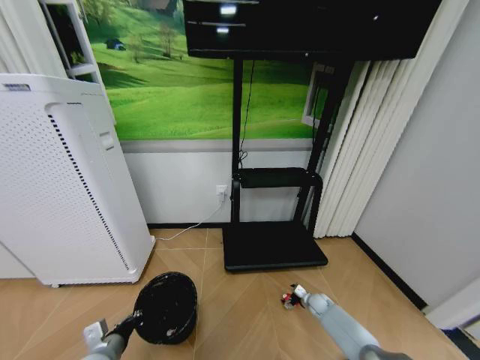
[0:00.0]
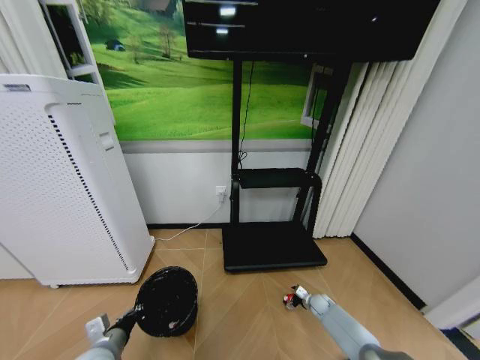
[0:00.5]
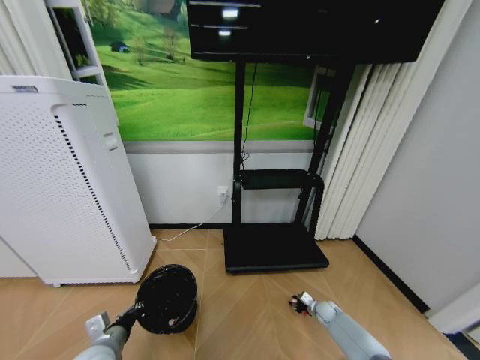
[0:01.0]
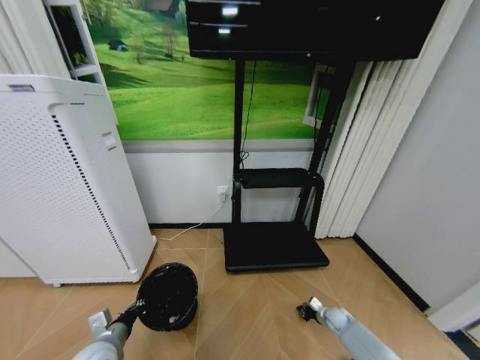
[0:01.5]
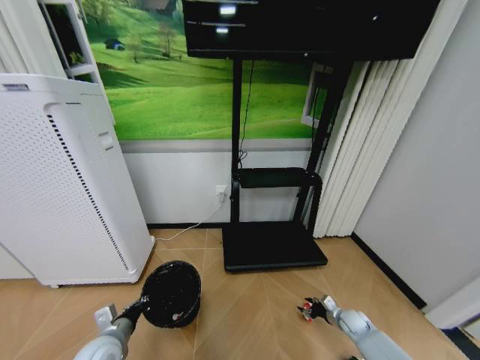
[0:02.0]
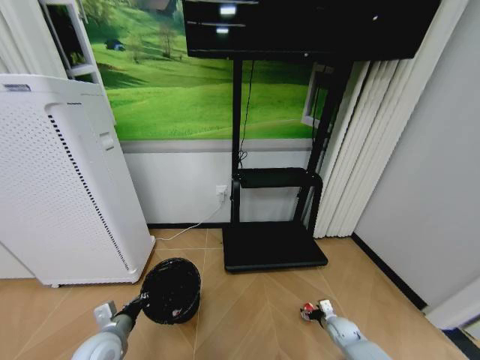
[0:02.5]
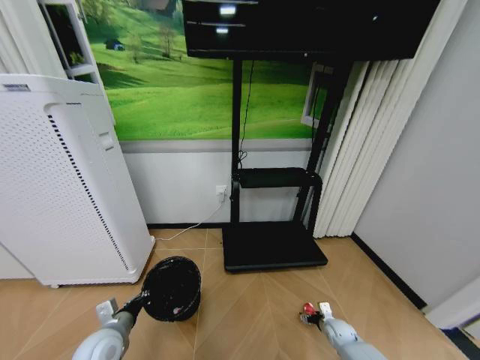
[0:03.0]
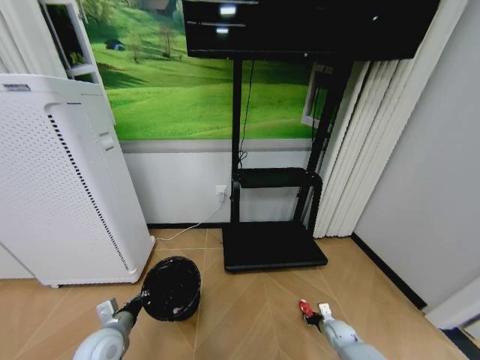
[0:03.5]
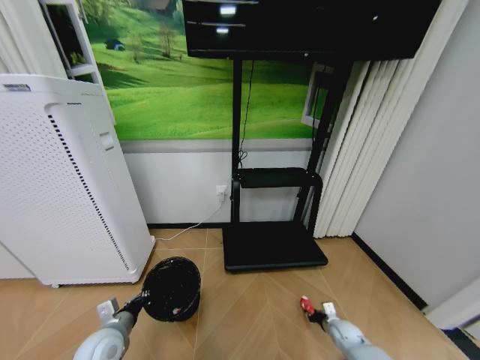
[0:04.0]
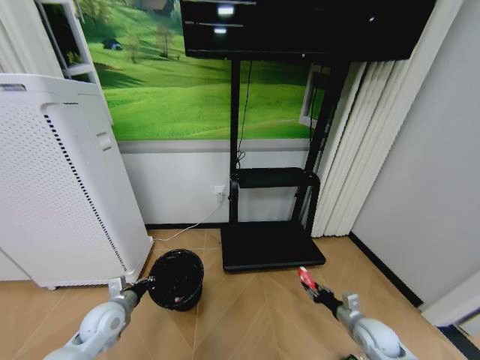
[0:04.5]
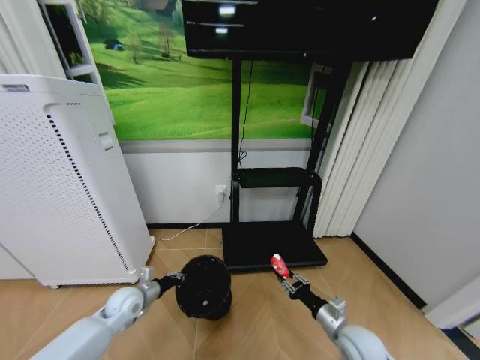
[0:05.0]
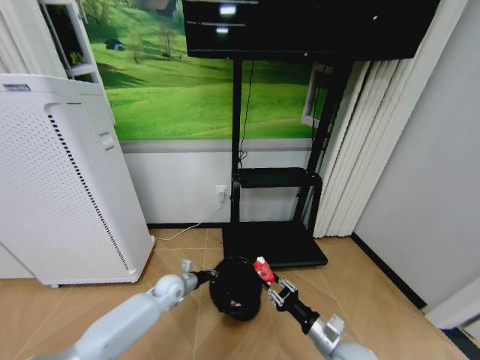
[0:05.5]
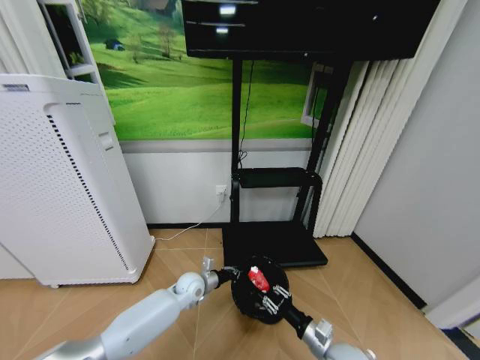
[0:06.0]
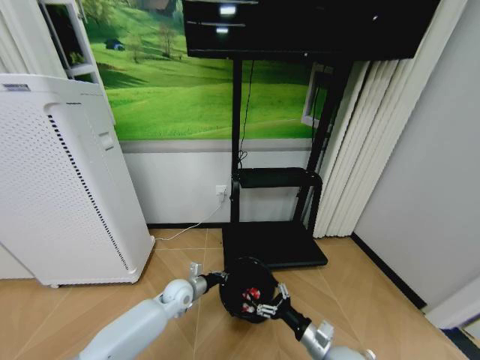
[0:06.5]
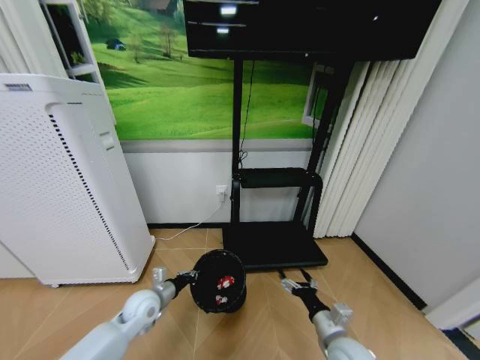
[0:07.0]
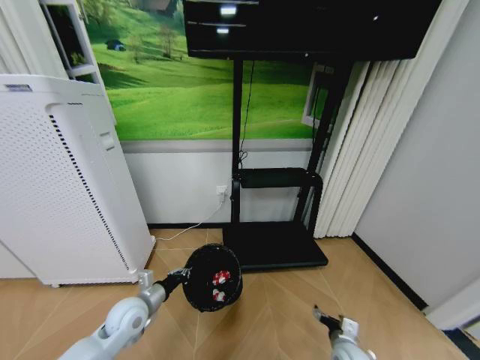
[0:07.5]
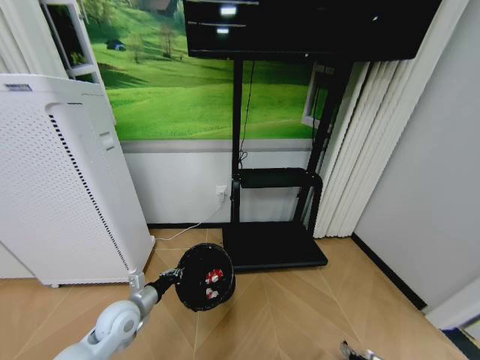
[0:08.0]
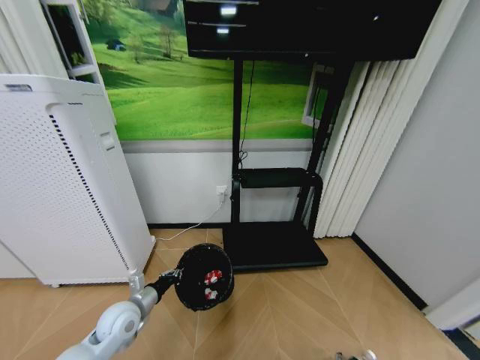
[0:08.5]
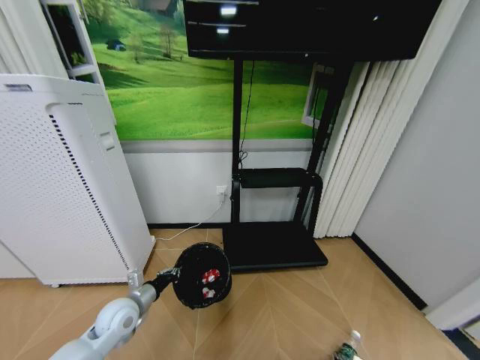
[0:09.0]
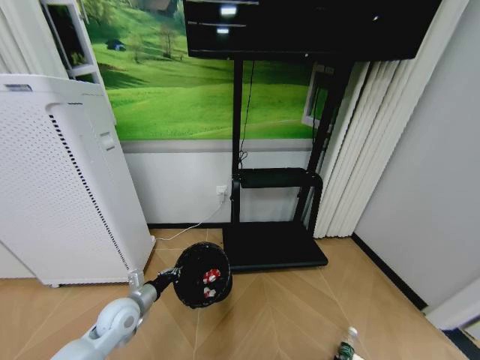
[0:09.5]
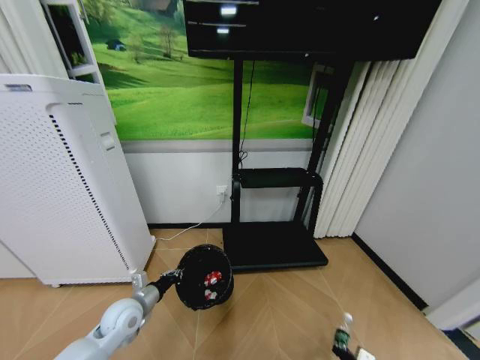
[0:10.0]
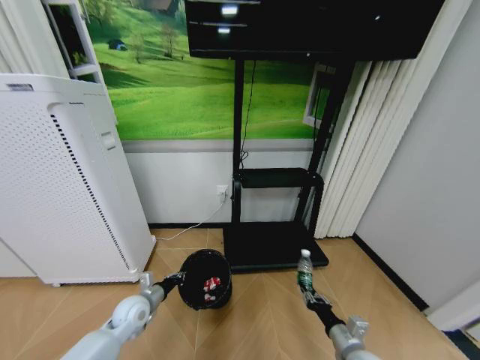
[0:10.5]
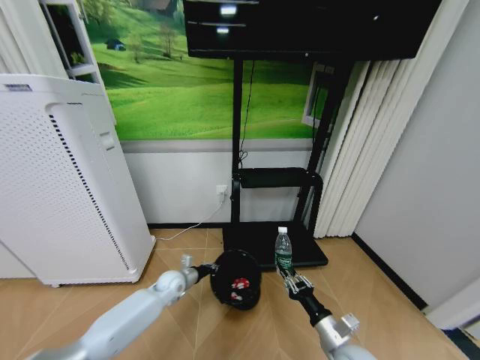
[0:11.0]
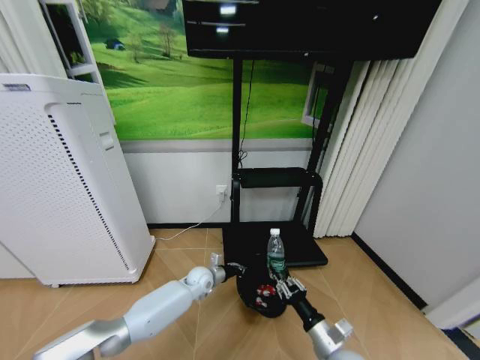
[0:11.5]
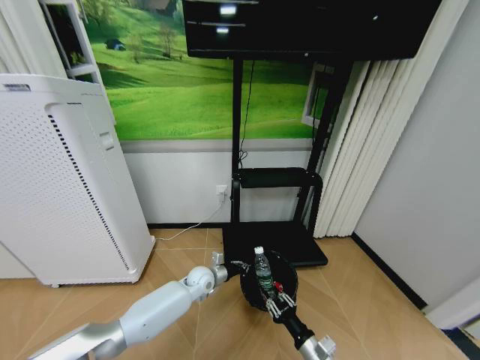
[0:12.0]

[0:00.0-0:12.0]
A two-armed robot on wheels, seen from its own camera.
Task of the whole recording: Pick up the trash bin and place the garbage on the floor into it.
0:00.0 to 0:02.0: The right gripper heads backward and to the right, covering roughly 10 cm, and closes its fingers.
0:02.0 to 0:04.0: The right gripper shifts by approximately 5 cm, and opens, then closes once more.
0:04.0 to 0:06.0: The right gripper goes about 25 cm upward, to the left and backward. The left gripper heads to the right and forward, covering some 25 cm.
0:06.0 to 0:08.0: The left gripper shifts approximately 20 cm to the left, backward and upward. The right gripper shifts approximately 20 cm downward, to the right and backward, and opens up.
0:08.0 to 0:10.0: The right gripper closes its fingers.
0:10.0 to 0:12.0: The right gripper travels to the left and upward by roughly 15 cm. The left gripper goes some 25 cm to the right and forward.

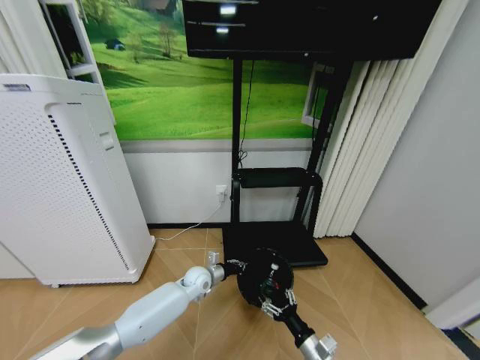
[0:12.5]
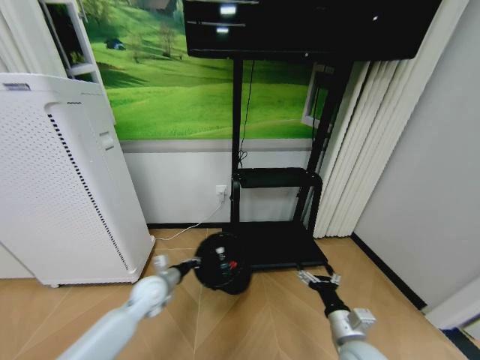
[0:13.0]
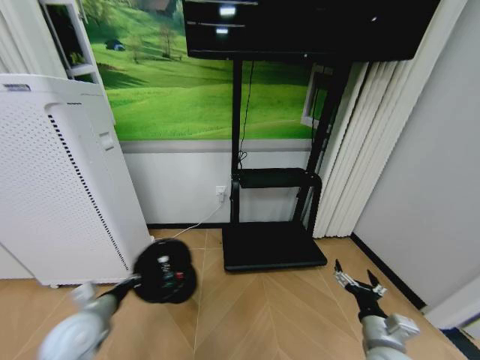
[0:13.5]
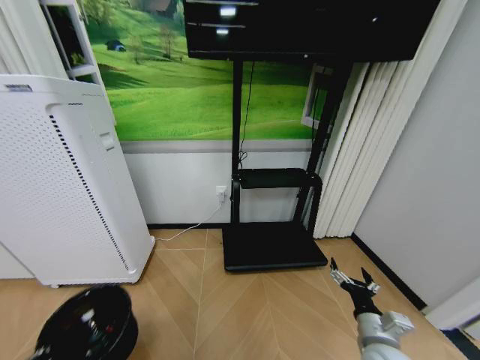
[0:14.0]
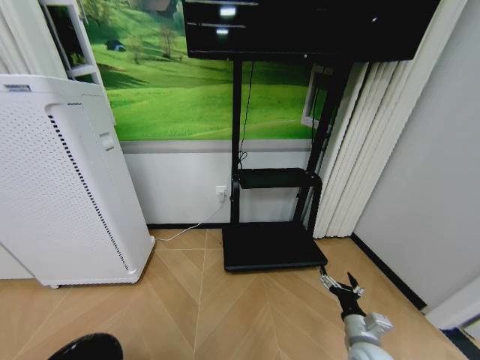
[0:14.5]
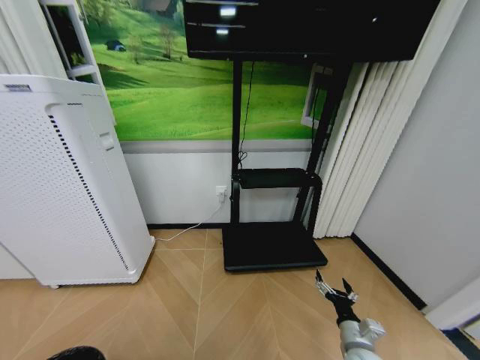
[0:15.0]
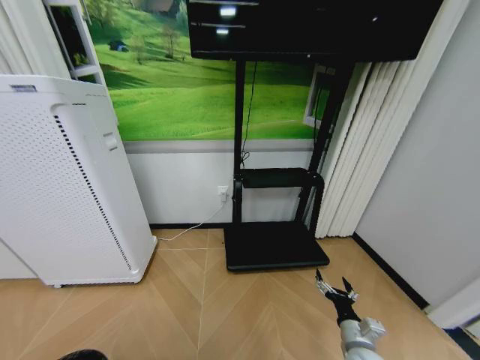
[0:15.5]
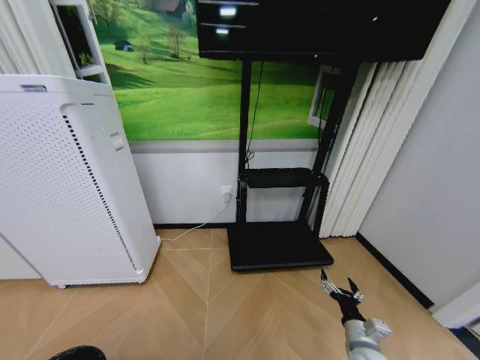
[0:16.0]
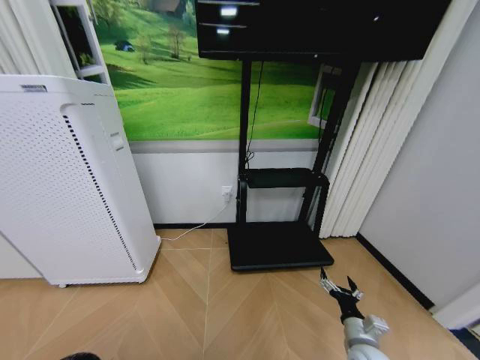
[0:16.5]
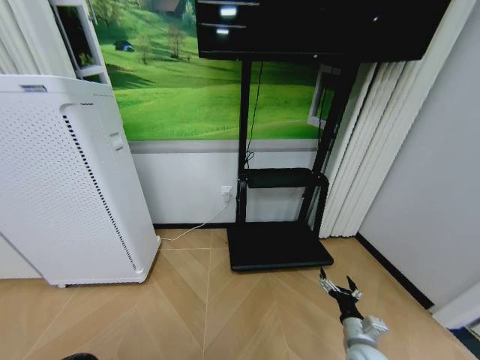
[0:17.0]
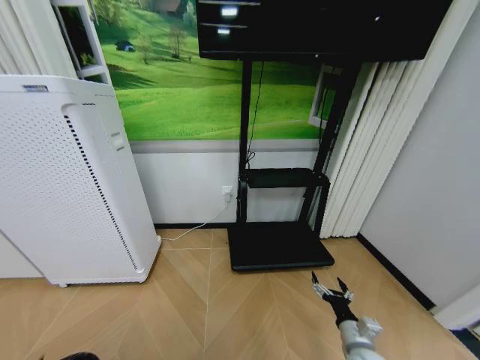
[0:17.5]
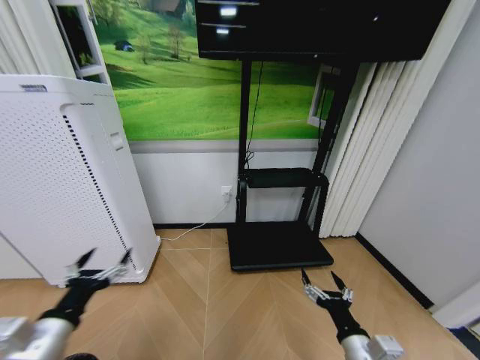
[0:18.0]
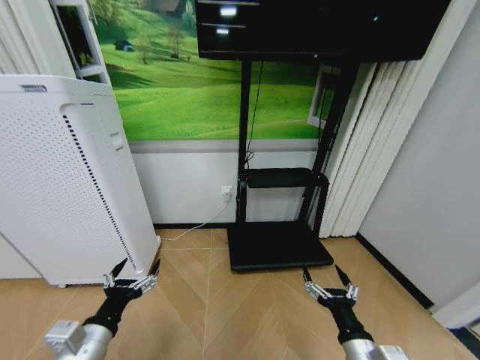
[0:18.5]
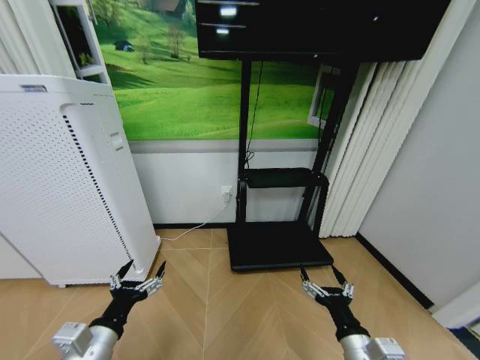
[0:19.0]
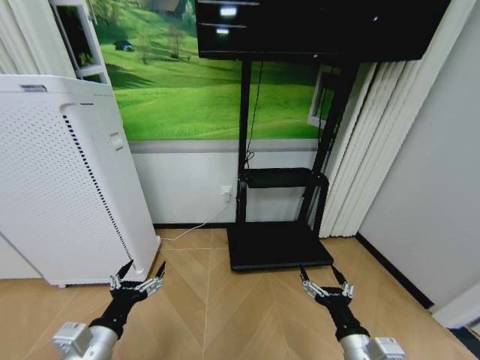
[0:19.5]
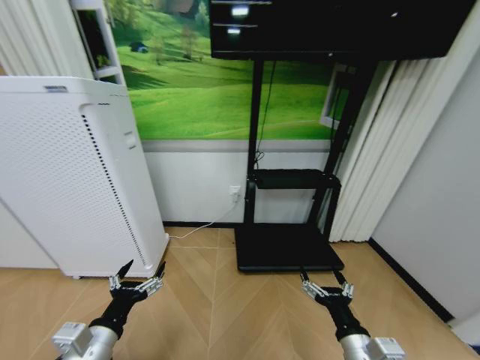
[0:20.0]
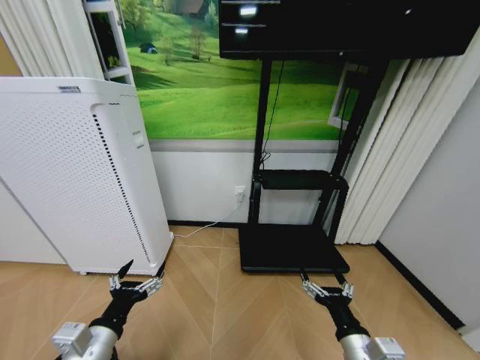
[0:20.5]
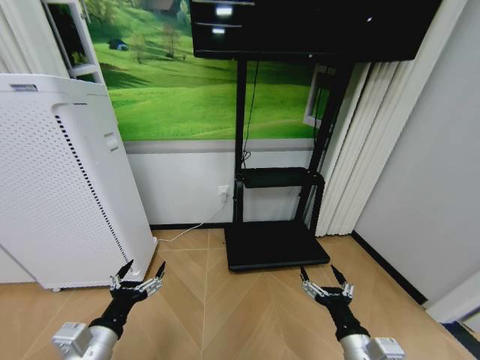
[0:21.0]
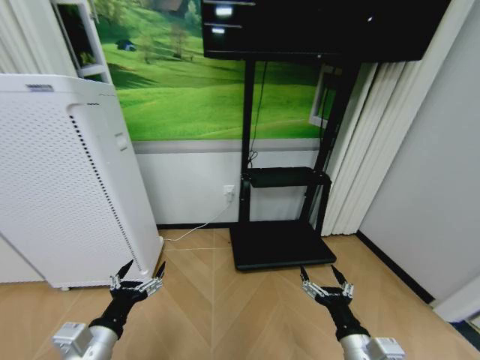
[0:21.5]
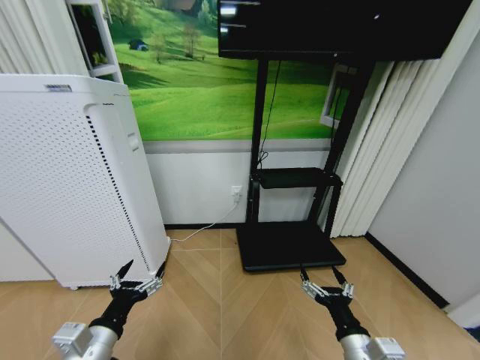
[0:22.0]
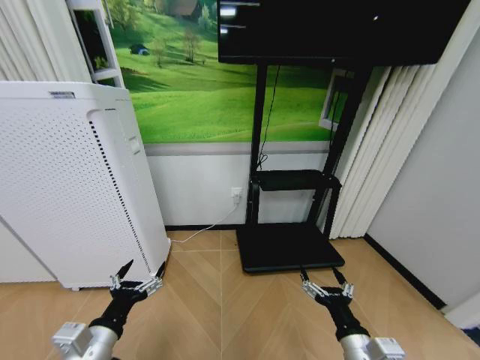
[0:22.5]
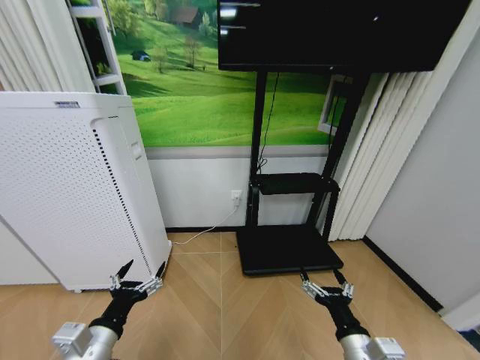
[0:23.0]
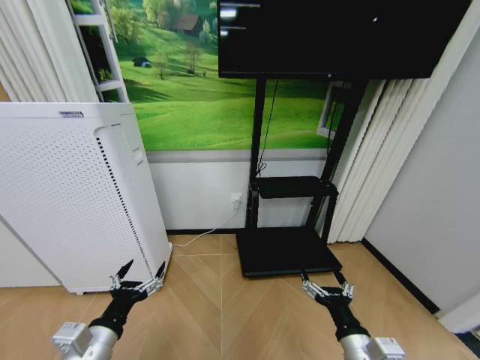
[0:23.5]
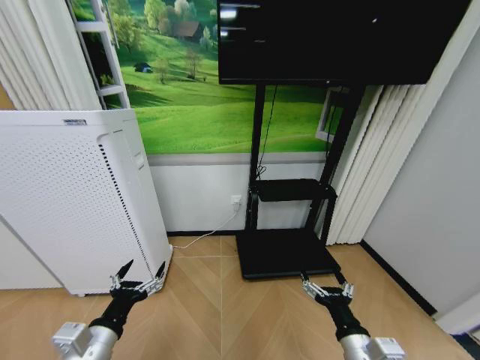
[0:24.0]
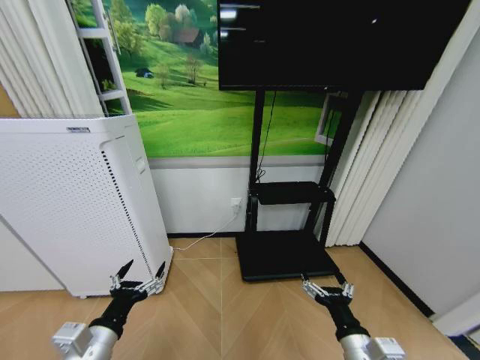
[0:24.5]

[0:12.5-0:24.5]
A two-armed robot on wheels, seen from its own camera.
Task of the whole recording: Pick up the trash bin and place the garbage on the floor into it.
0:12.5 to 0:14.5: The right gripper heads to the right, covering approximately 10 cm, while the left gripper moves backward and to the left, some 50 cm.
0:14.5 to 0:16.5: The left gripper changes place by about 5 cm.
0:16.5 to 0:18.5: The right gripper travels upward, to the left and backward by some 15 cm; the left gripper goes approximately 25 cm to the right, forward and upward, and opens up.
0:22.5 to 0:24.5: Both grippers stay about where they are.
